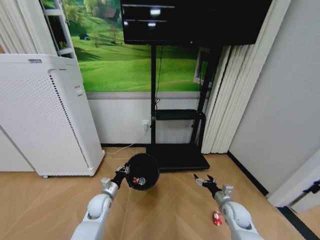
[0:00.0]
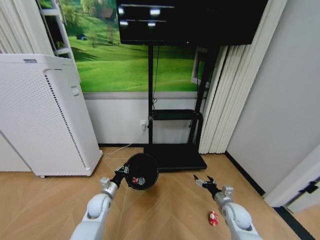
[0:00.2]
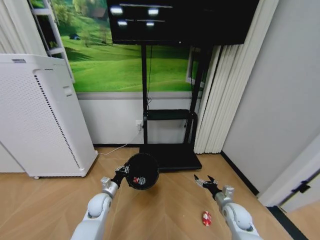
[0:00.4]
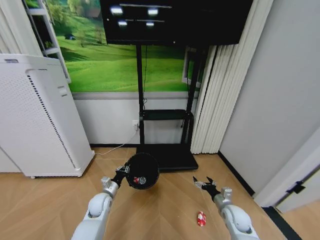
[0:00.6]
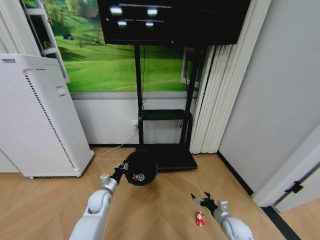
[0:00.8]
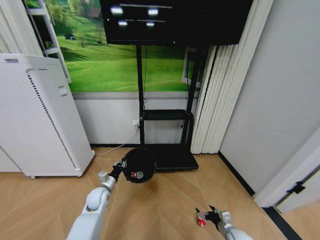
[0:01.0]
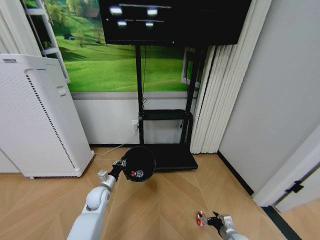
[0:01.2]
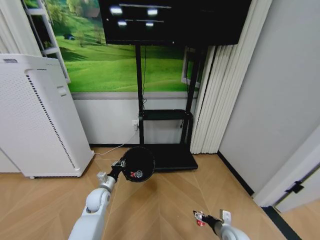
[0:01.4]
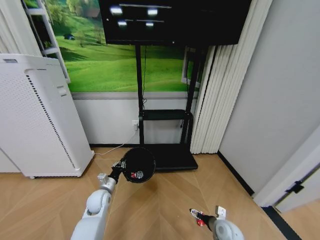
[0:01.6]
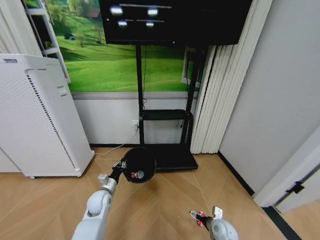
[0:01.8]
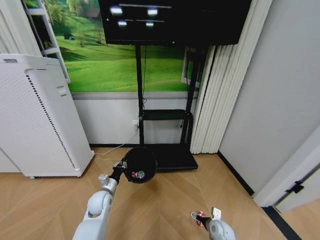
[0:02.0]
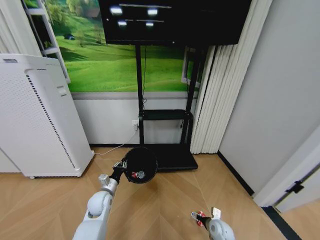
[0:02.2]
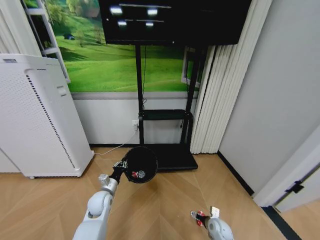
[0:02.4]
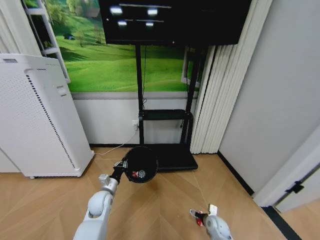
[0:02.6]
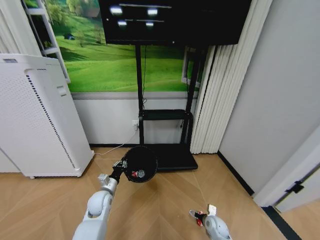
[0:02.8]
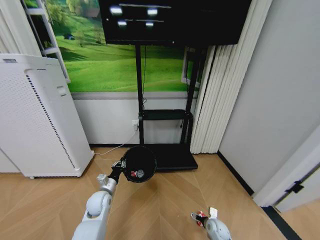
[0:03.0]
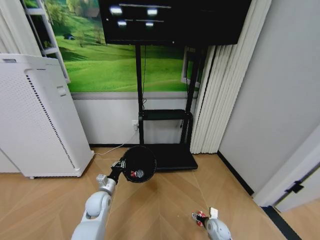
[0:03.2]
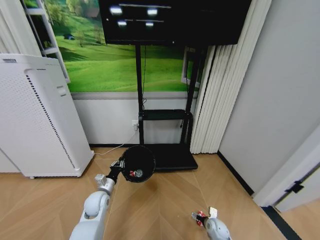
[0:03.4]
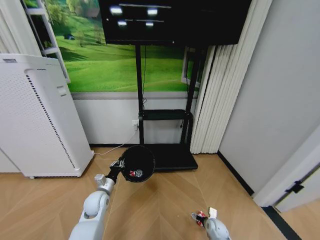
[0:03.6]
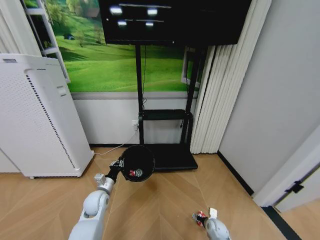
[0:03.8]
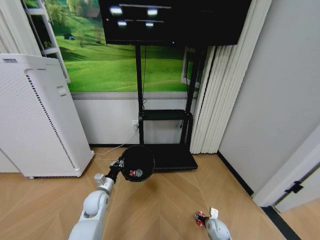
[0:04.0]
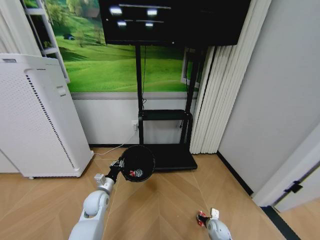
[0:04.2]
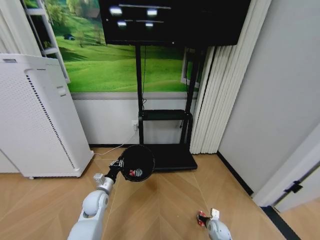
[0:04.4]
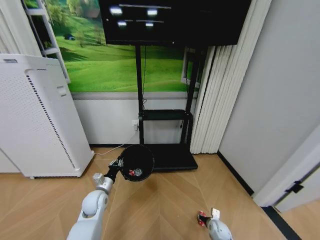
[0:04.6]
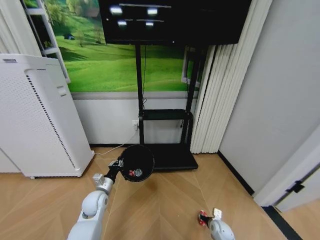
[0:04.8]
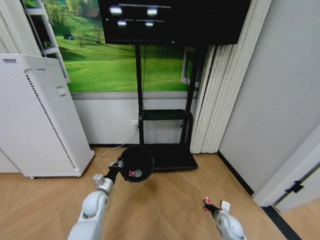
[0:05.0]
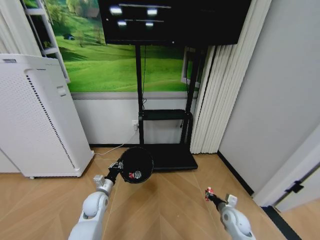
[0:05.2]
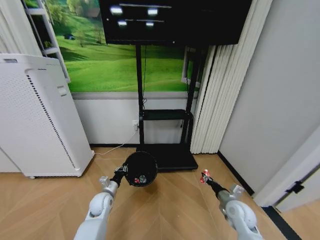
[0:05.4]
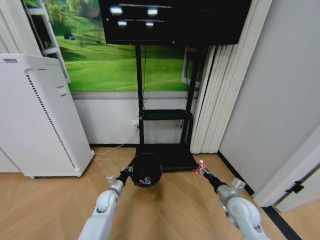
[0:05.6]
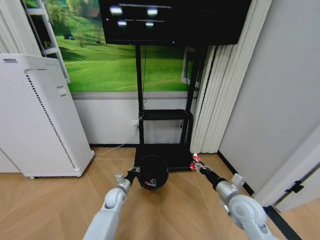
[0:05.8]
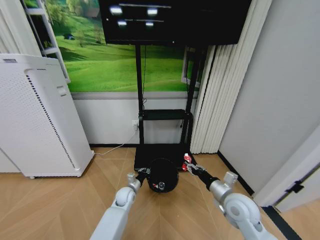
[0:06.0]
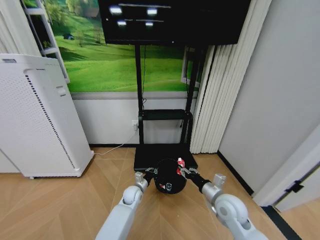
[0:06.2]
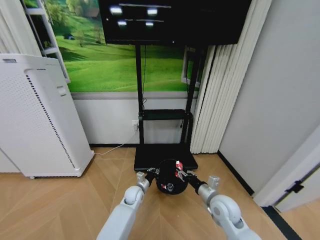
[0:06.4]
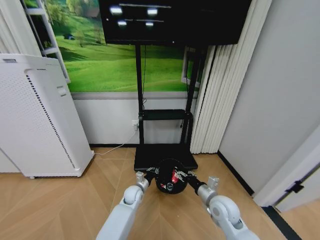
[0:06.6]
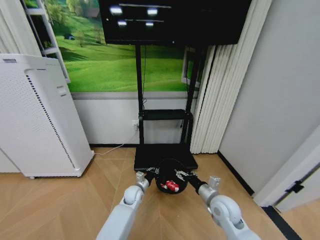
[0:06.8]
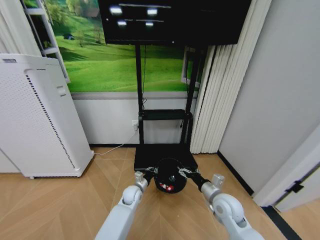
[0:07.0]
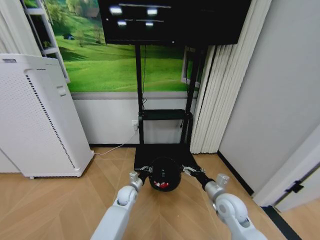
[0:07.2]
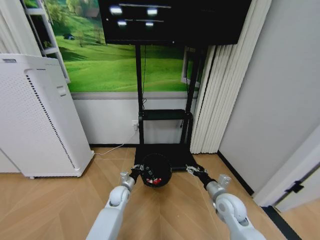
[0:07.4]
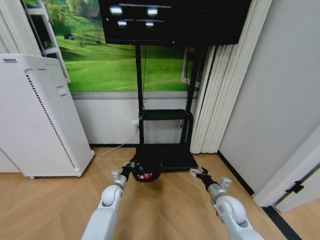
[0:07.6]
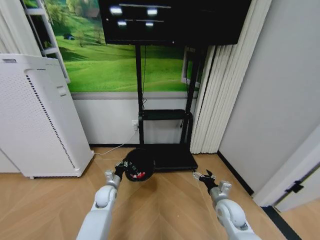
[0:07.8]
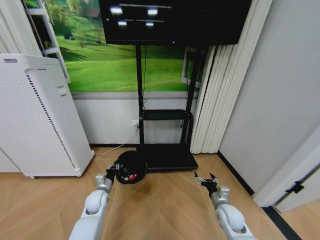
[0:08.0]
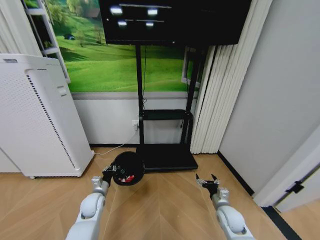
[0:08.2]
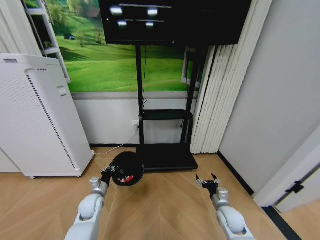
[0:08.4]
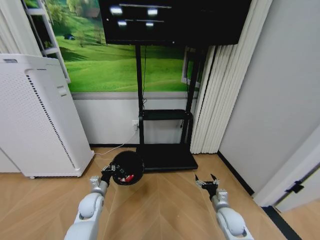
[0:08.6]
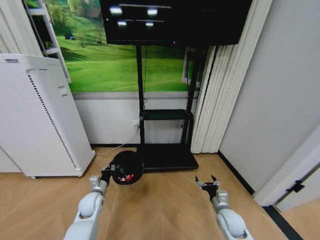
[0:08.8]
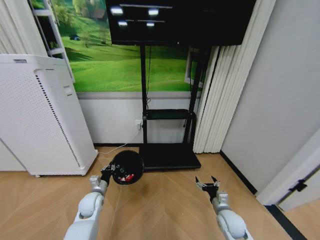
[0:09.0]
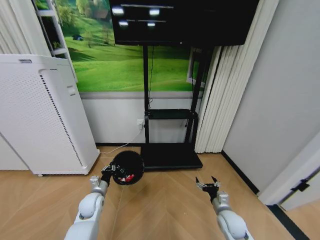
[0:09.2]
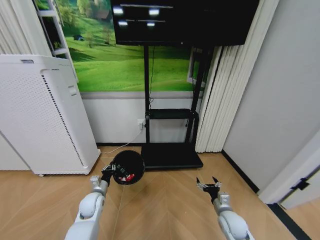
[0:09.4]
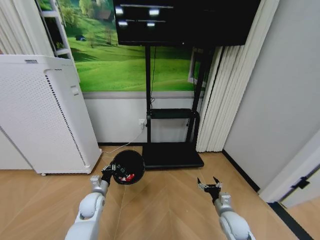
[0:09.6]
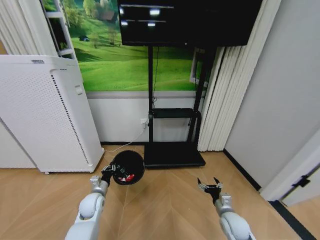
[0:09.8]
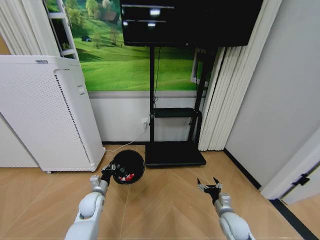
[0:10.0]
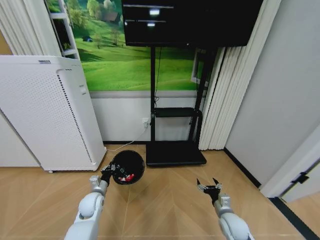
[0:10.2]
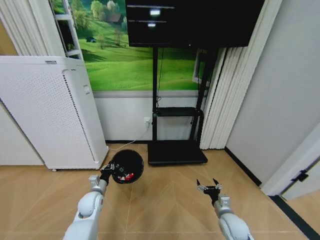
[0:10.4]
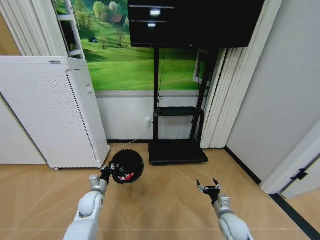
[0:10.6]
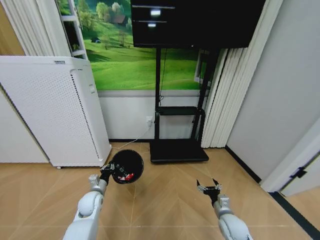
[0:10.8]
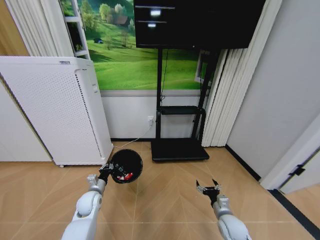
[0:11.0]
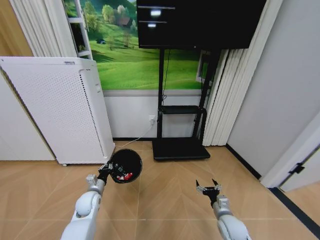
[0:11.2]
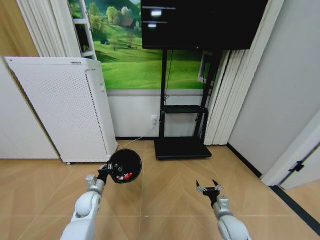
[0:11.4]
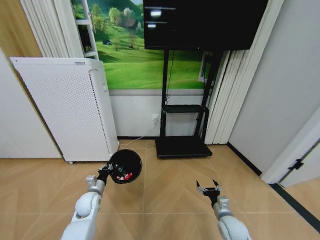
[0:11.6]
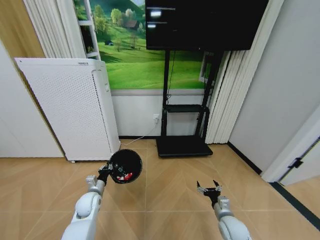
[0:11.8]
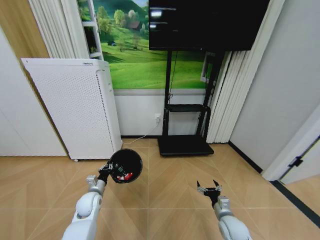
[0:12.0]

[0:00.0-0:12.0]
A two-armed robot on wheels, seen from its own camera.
Task of the whole recording: Pick up the trash bin and place the garbage on the floor into it.
0:00.0 to 0:01.6: The right gripper moves backward, approximately 5 cm.
0:01.6 to 0:03.0: The right gripper goes about 10 cm downward.
0:03.0 to 0:04.4: The right gripper closes up.
0:04.4 to 0:06.0: The left gripper heads to the right, downward and forward, covering roughly 15 cm; the right gripper moves upward, approximately 30 cm.
0:06.0 to 0:07.6: The left gripper travels to the left by approximately 5 cm, while the right gripper moves downward, approximately 5 cm, and opens its fingers.
0:07.6 to 0:09.0: The left gripper shifts roughly 10 cm to the left, while the right gripper goes approximately 10 cm downward.

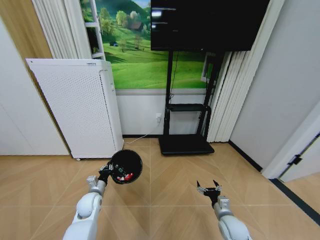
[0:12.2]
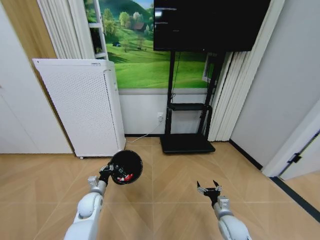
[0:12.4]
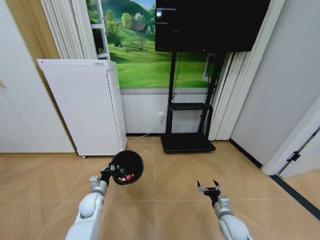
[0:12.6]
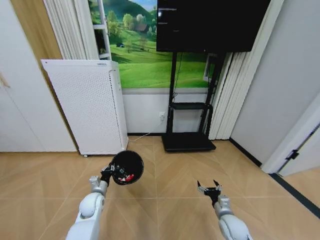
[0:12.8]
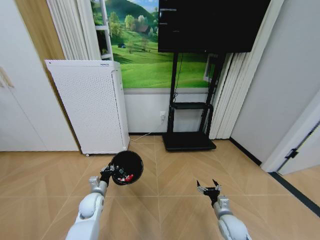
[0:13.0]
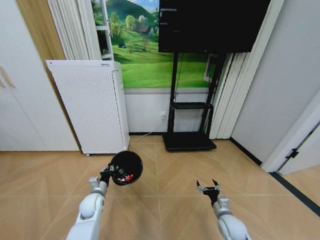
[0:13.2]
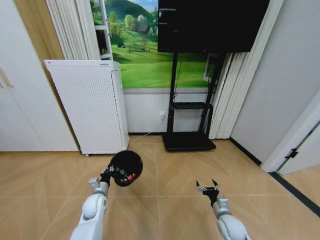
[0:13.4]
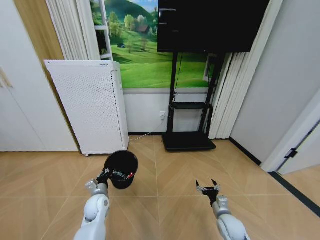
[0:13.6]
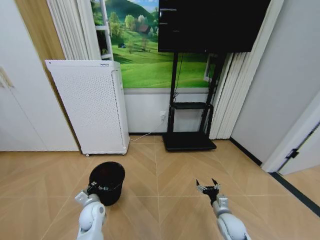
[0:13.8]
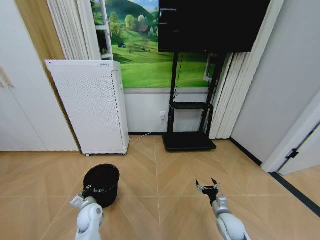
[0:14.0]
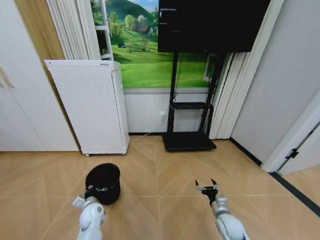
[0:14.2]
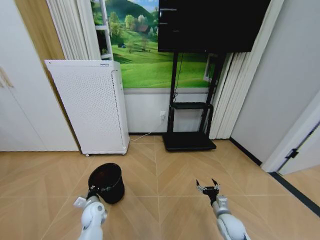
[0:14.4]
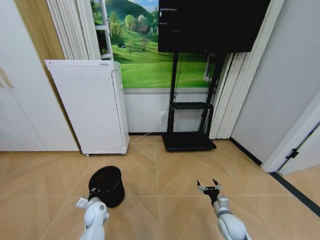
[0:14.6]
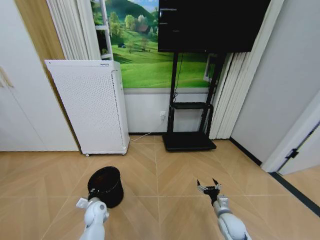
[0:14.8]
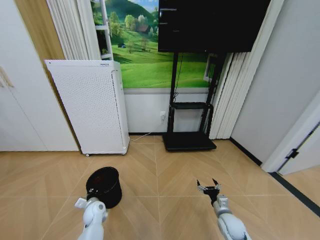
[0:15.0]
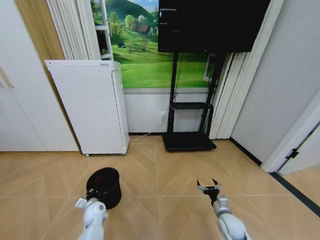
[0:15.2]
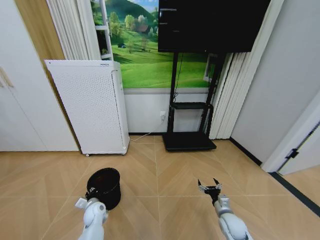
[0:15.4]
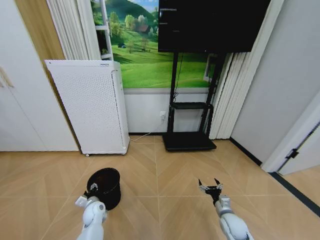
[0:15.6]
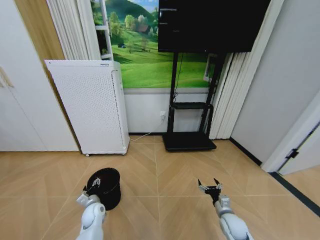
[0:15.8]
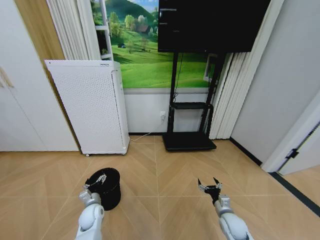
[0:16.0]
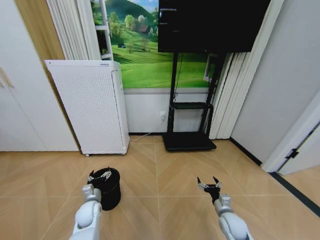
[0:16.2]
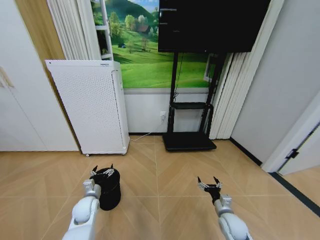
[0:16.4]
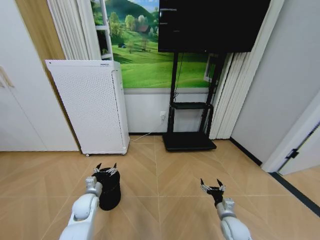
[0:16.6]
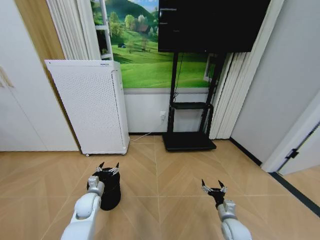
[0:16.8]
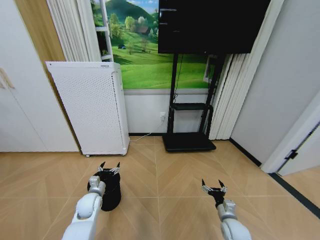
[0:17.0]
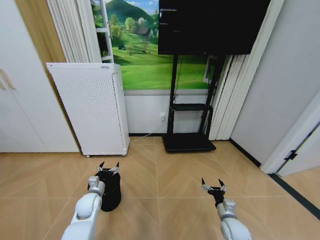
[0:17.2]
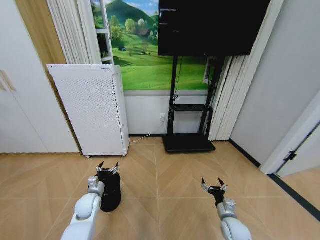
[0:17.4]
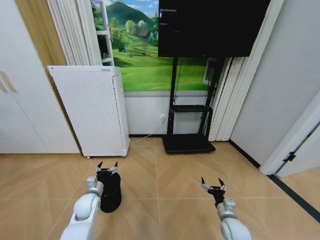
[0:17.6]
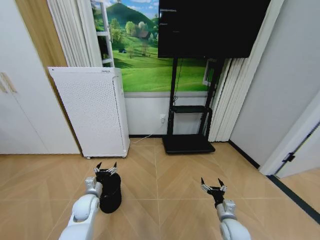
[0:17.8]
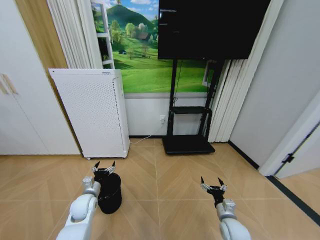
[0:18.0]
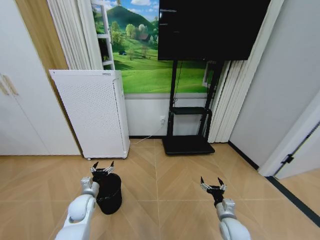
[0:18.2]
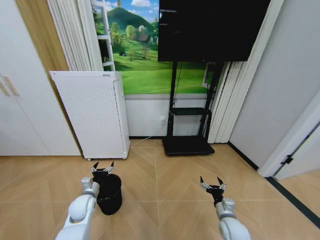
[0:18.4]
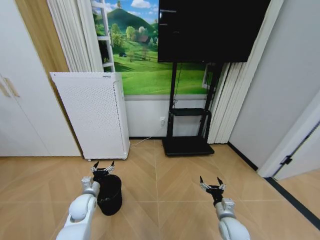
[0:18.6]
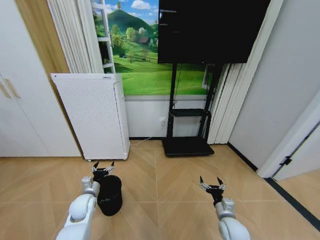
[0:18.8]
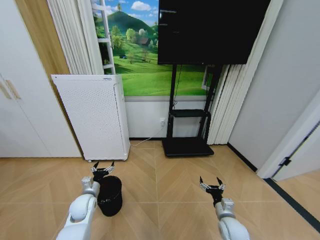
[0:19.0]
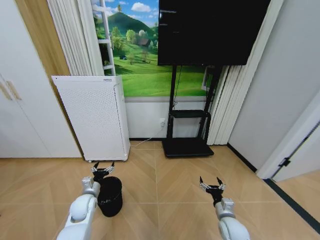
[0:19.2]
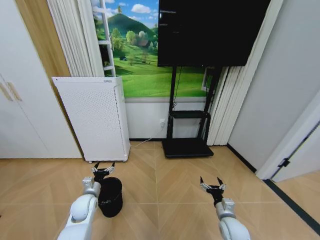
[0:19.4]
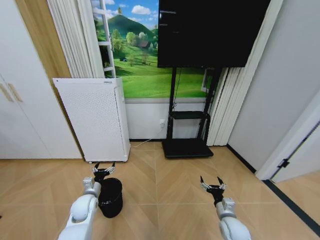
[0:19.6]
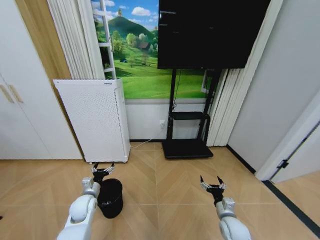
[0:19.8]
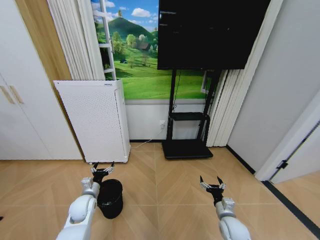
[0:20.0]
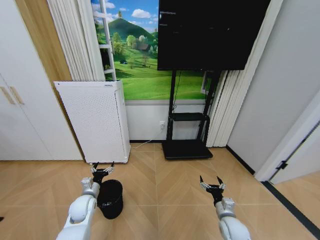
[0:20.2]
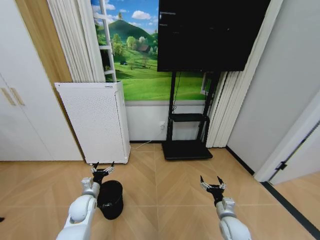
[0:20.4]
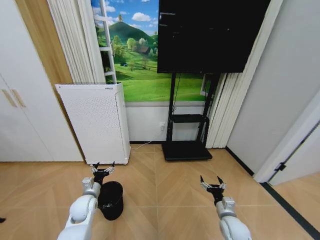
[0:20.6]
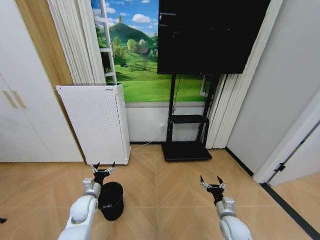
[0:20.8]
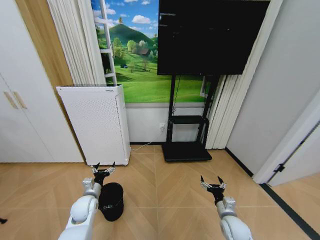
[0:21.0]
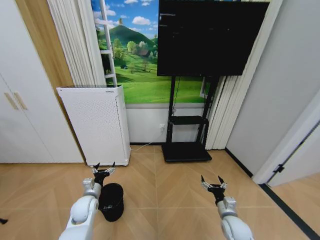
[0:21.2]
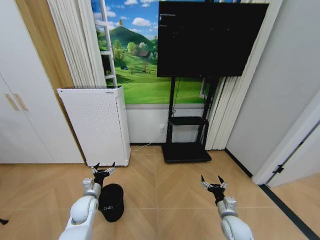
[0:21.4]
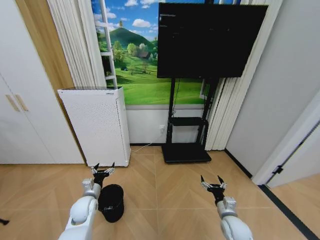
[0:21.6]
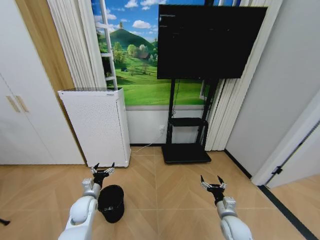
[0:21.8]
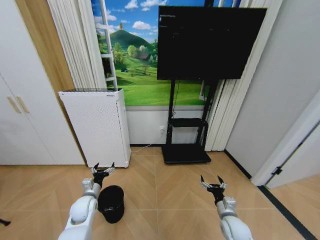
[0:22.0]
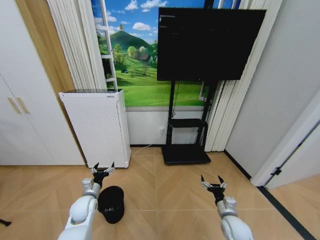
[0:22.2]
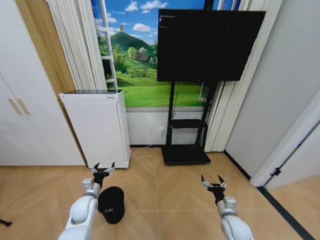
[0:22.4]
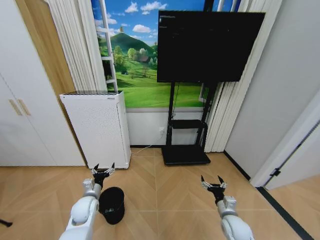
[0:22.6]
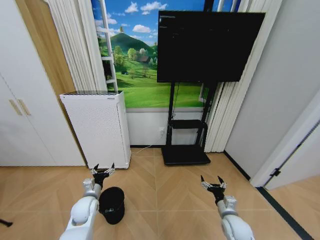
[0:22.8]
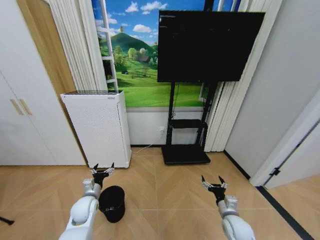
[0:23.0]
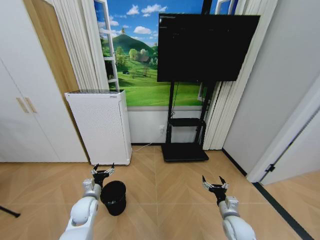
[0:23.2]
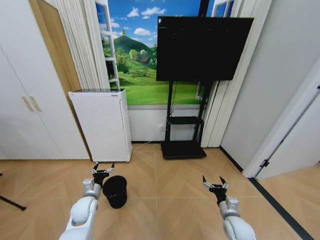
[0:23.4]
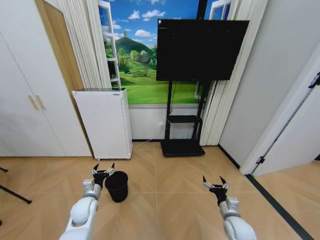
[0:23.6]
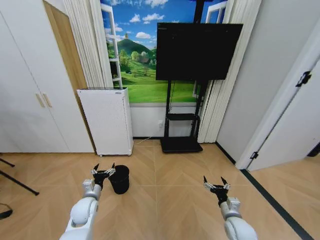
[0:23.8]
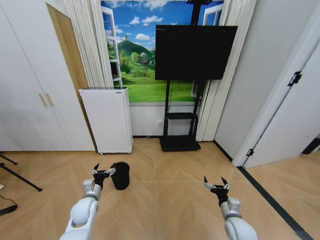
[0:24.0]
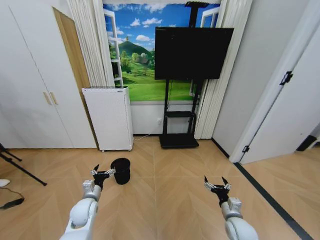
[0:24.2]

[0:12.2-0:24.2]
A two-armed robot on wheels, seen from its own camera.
Task of the whole recording: Pick up the trash bin and place the garbage on the floor into it.
0:13.8 to 0:15.2: The left gripper shifts about 5 cm downward.
0:15.2 to 0:16.6: The left gripper shifts about 10 cm upward, and opens its fingers.
0:16.6 to 0:18.2: The grippers move only a little.
0:18.2 to 0:21.2: The two grippers keep their place.
0:21.2 to 0:22.6: Both grippers stay about where they are.
